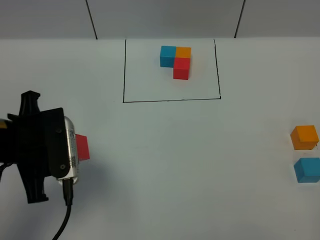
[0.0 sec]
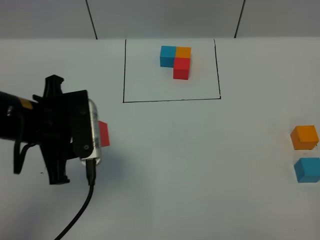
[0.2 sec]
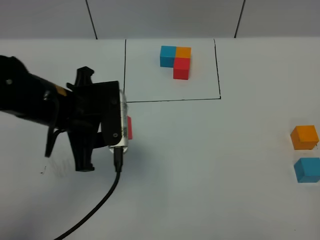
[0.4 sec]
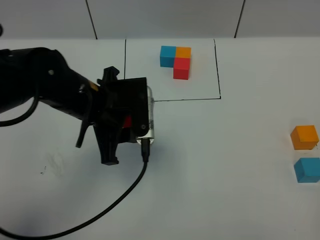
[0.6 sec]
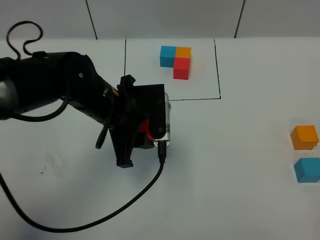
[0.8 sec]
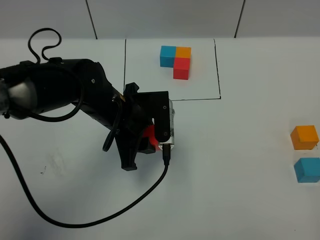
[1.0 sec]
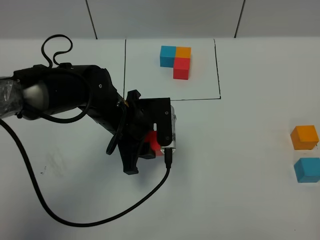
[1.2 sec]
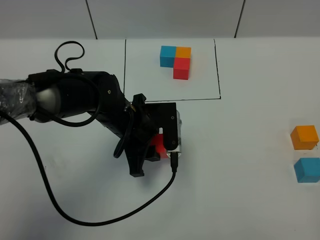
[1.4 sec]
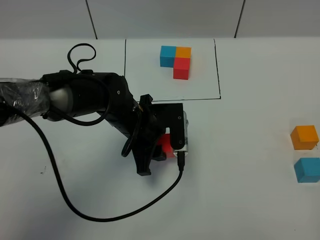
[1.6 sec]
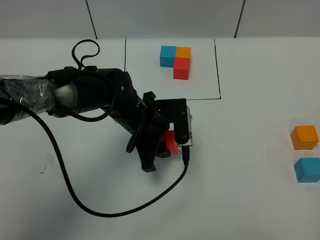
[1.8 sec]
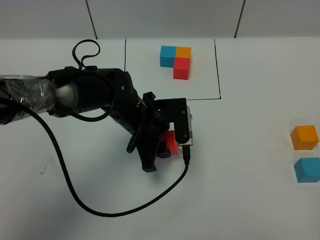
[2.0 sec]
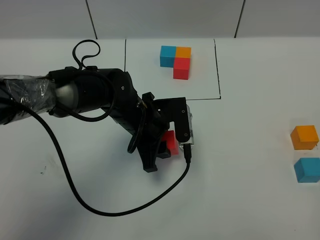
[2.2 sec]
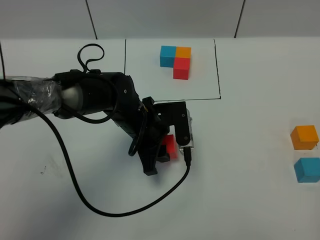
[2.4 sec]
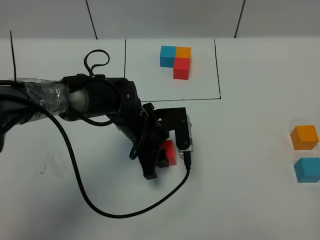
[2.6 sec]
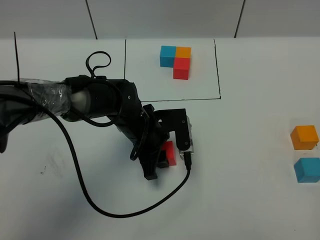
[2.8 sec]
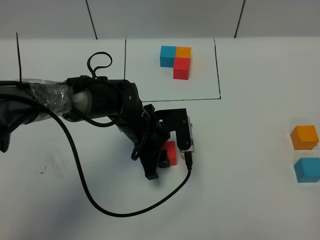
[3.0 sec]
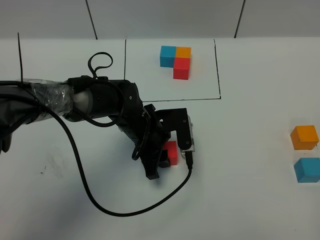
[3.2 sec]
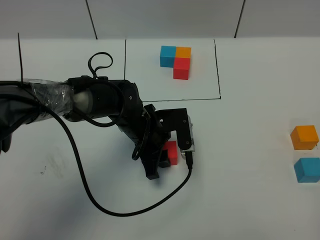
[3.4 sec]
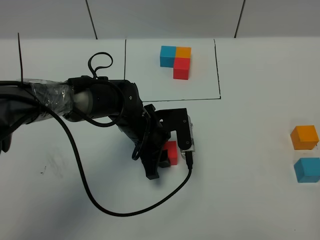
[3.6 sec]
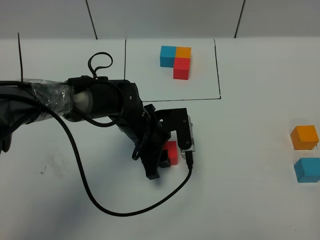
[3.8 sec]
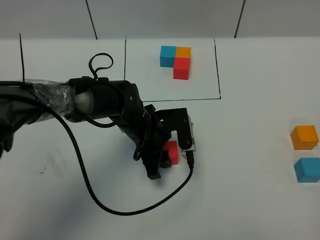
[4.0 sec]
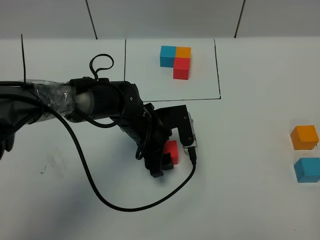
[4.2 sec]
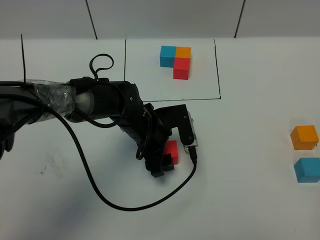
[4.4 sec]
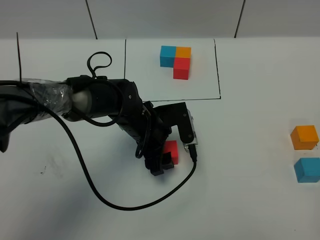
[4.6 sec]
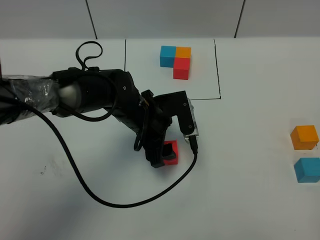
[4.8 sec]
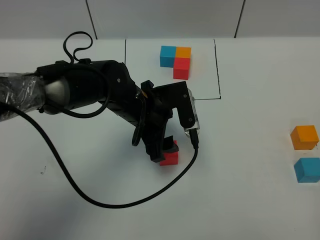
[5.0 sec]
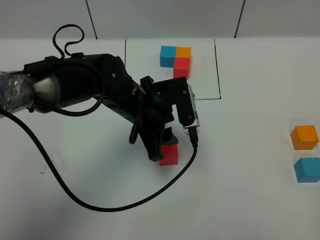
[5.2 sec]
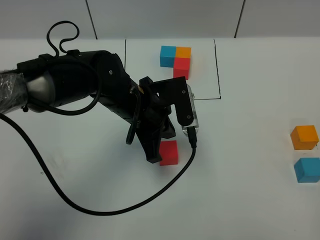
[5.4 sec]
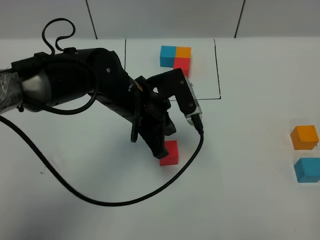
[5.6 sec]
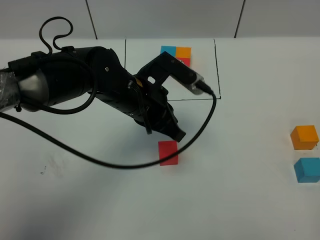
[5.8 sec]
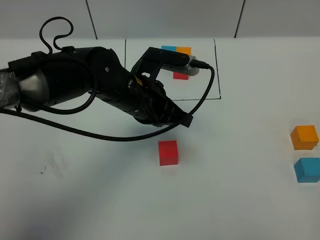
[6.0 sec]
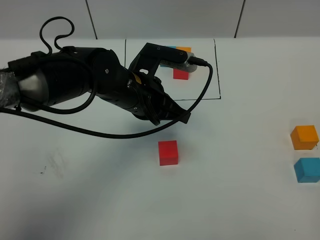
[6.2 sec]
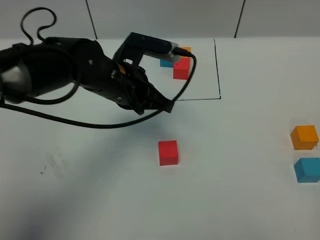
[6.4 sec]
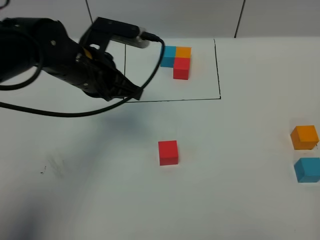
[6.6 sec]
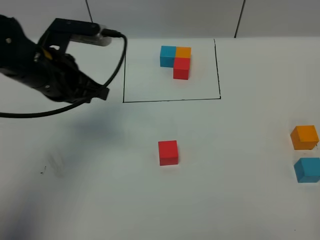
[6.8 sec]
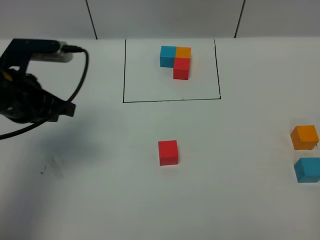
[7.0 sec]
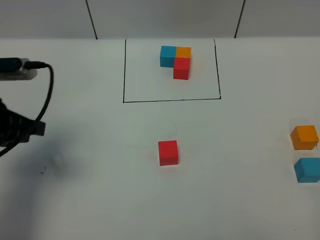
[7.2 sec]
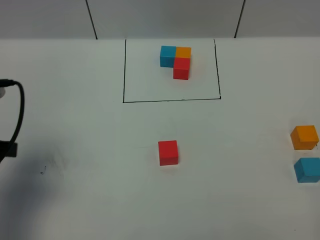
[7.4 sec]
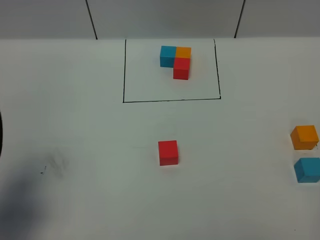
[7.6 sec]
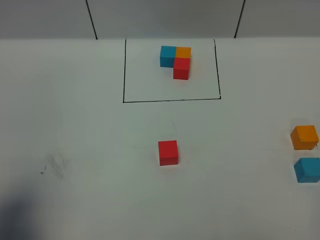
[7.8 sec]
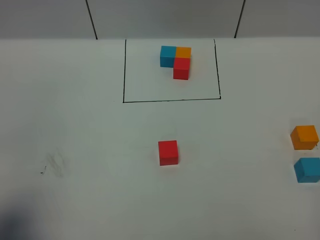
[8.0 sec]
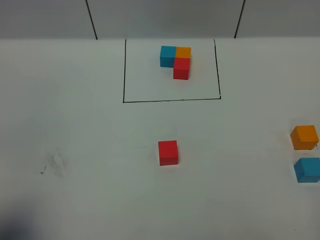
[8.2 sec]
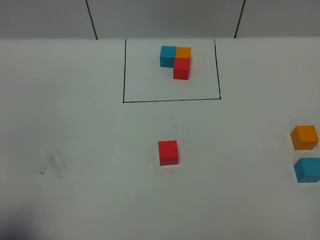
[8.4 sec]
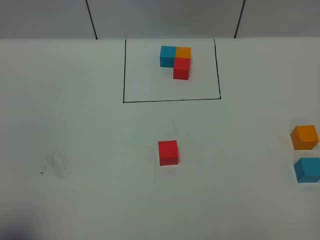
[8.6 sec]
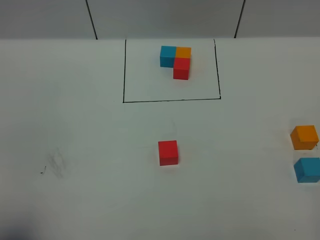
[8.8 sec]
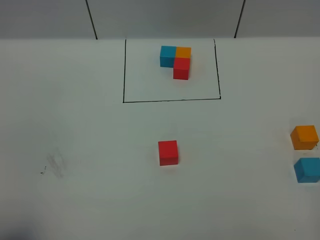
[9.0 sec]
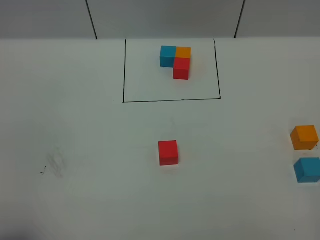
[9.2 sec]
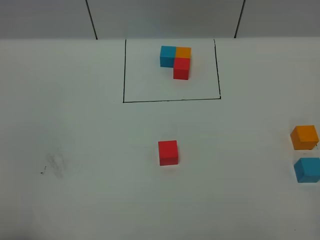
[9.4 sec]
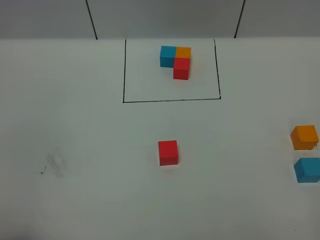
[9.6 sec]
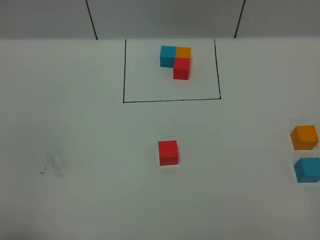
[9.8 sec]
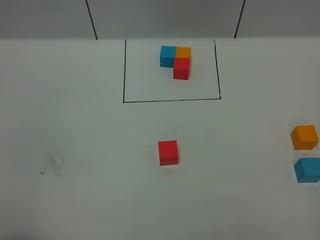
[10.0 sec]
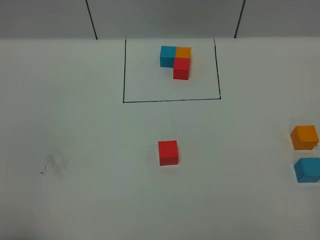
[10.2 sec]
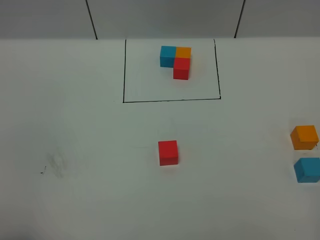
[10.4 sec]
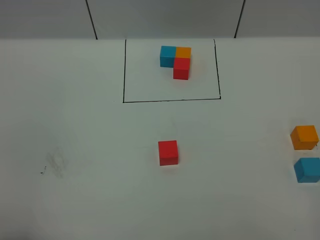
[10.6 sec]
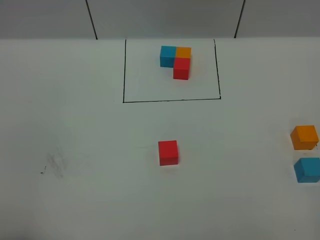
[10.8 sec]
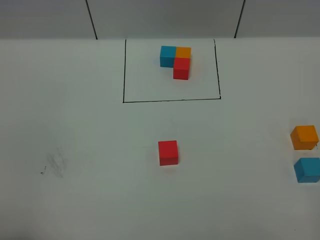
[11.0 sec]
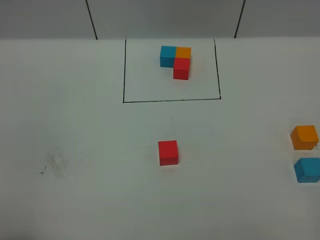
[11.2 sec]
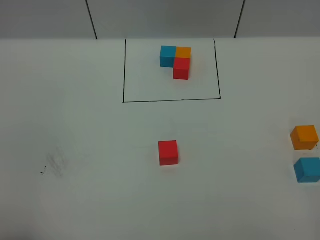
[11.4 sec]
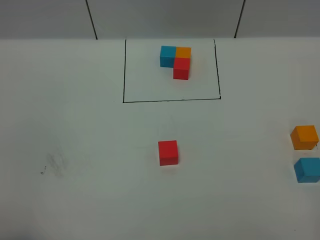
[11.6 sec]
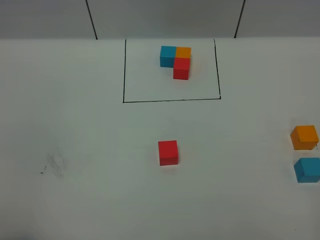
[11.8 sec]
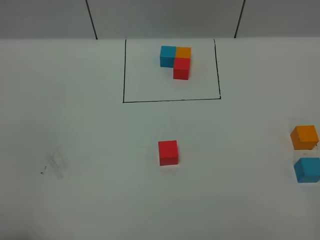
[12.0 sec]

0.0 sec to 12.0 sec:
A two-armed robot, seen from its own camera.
Task of the whole recording: According to the building block template in front, assemble the scattered blocks together.
Step, 0.0 sec to 4.6 sec: Put the red cube in the center of the table.
0.0 sec to 1.6 sec: The left gripper is displaced to the right, downward and forward by some 20 cm.
1.6 sec to 3.0 sec: The grippers stay close to where they were, moving slightly.
3.0 sec to 4.4 sec: The left gripper opens up.
4.4 sec to 6.0 sec: The left gripper moves upward, about 10 cm, and closes its fingers.
6.0 sec to 7.6 sec: The left gripper moves to the left and backward, some 30 cm.
7.6 sec to 9.0 sec: The left gripper shifts about 10 cm backward.
10.4 sec to 12.0 sec: Neither gripper changes place.

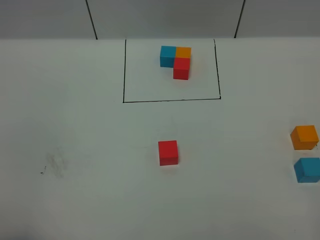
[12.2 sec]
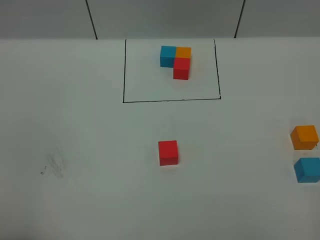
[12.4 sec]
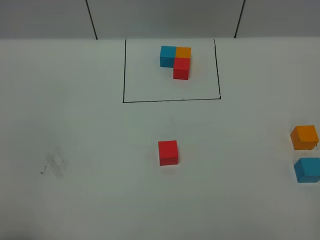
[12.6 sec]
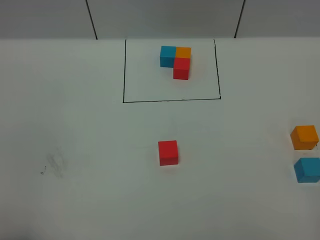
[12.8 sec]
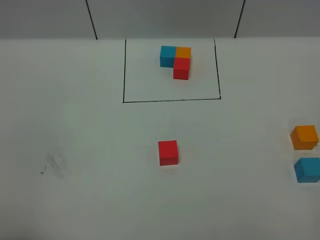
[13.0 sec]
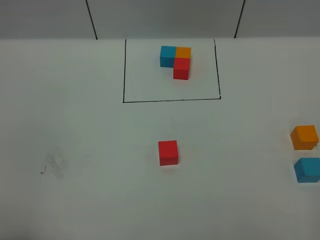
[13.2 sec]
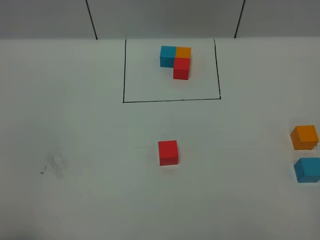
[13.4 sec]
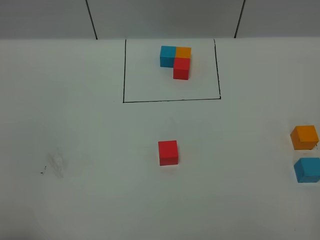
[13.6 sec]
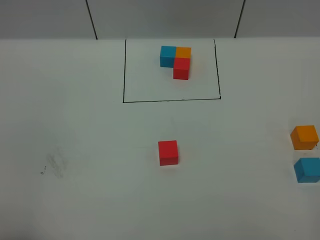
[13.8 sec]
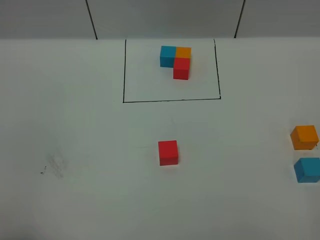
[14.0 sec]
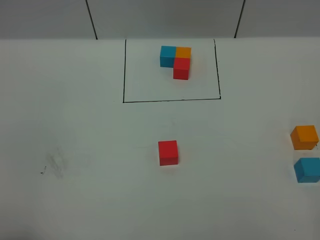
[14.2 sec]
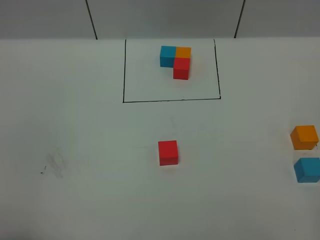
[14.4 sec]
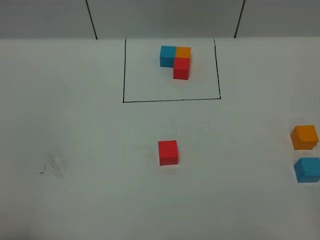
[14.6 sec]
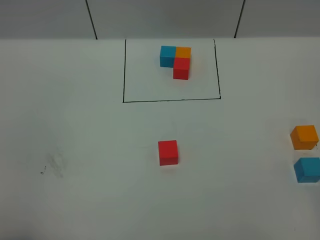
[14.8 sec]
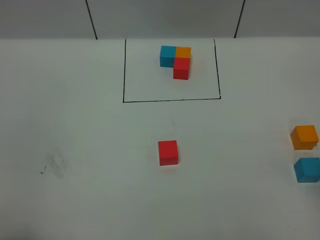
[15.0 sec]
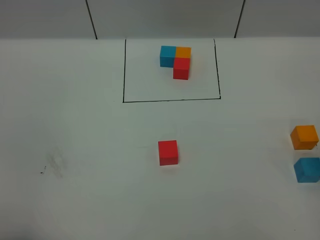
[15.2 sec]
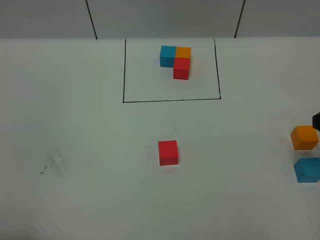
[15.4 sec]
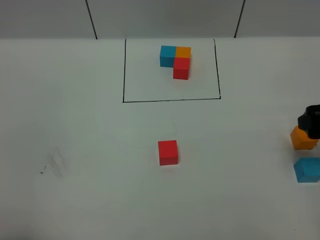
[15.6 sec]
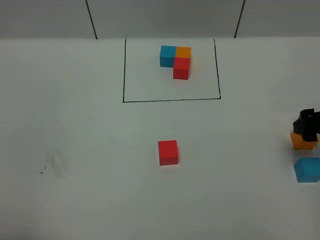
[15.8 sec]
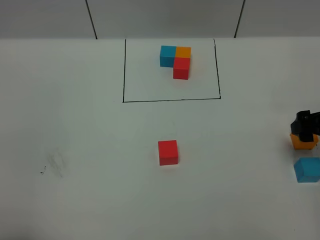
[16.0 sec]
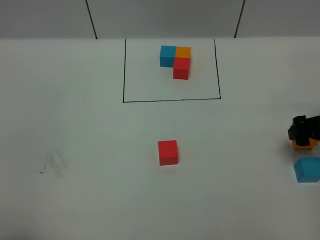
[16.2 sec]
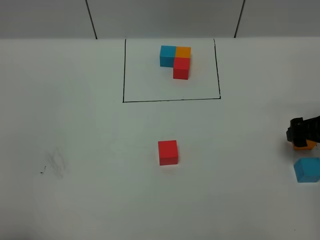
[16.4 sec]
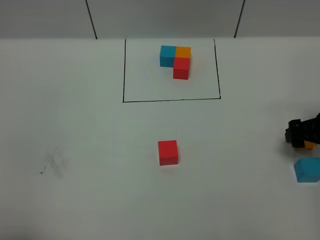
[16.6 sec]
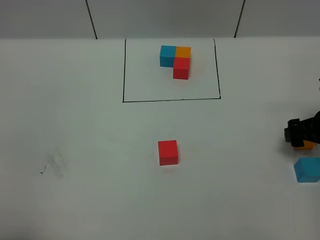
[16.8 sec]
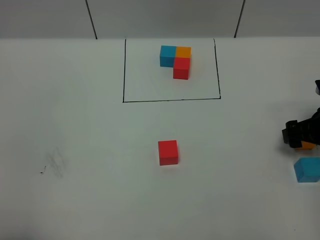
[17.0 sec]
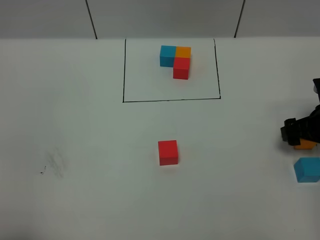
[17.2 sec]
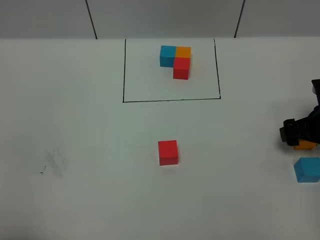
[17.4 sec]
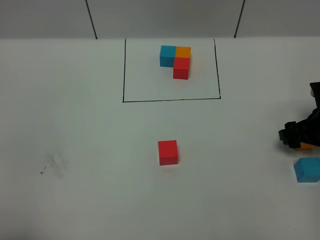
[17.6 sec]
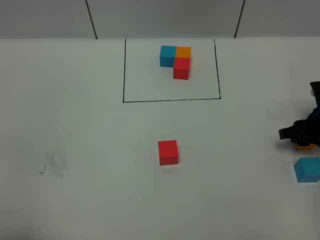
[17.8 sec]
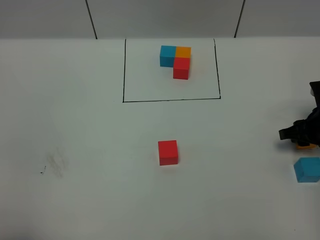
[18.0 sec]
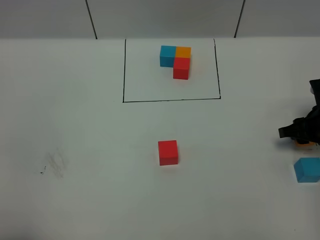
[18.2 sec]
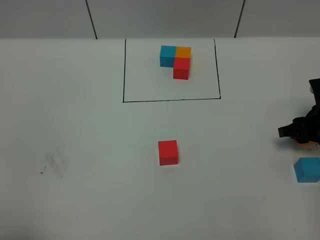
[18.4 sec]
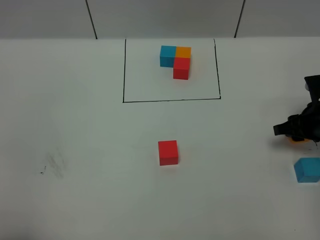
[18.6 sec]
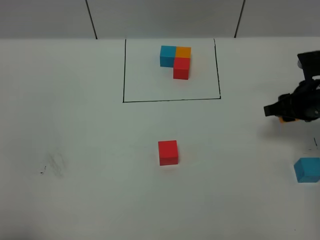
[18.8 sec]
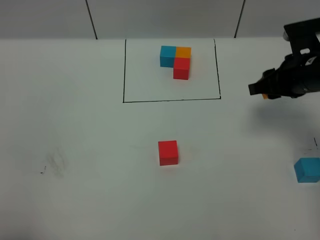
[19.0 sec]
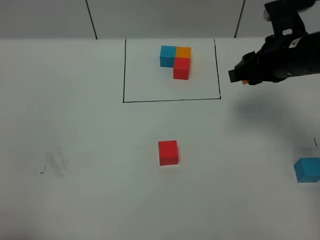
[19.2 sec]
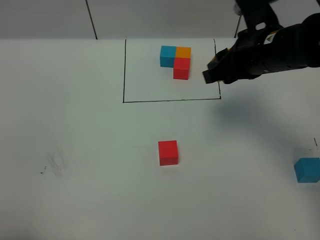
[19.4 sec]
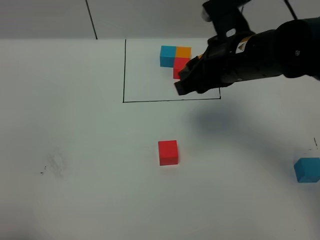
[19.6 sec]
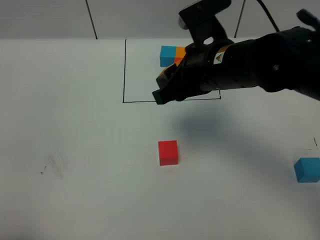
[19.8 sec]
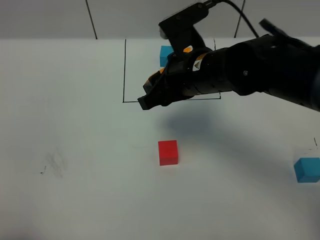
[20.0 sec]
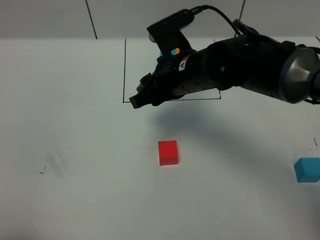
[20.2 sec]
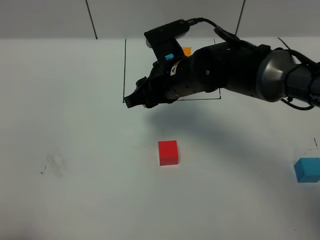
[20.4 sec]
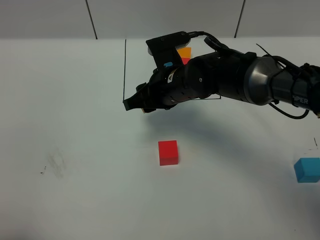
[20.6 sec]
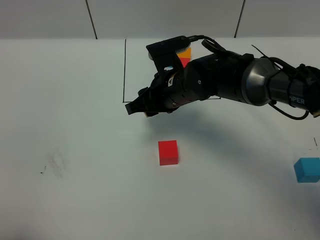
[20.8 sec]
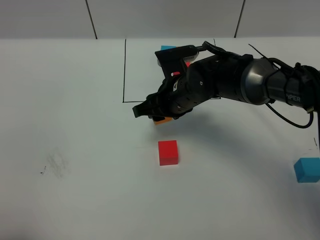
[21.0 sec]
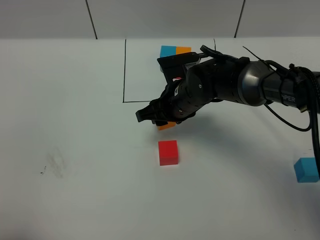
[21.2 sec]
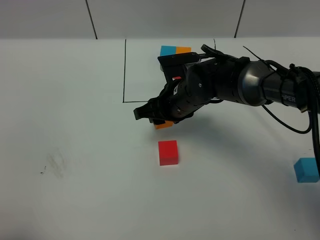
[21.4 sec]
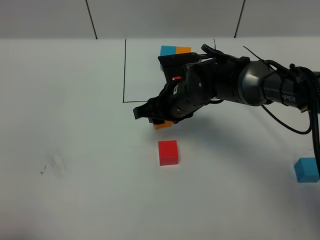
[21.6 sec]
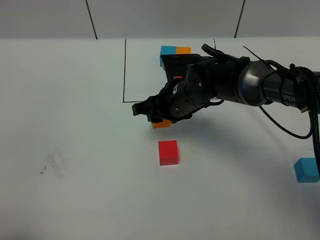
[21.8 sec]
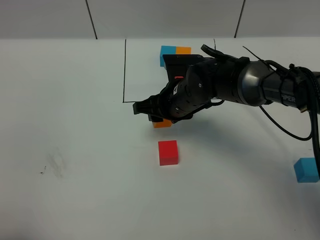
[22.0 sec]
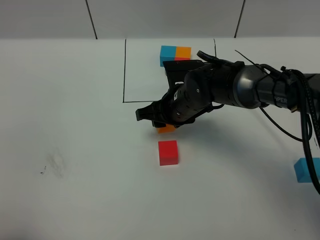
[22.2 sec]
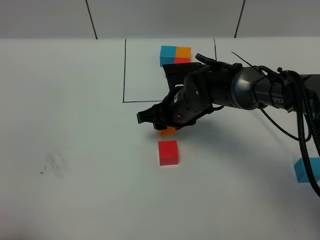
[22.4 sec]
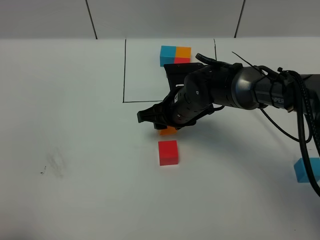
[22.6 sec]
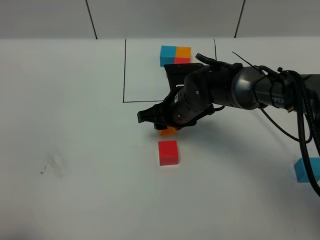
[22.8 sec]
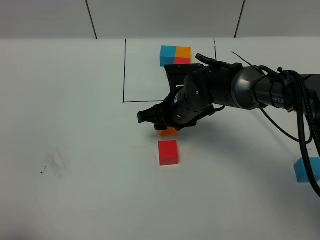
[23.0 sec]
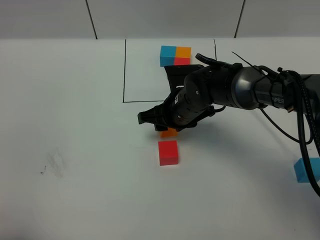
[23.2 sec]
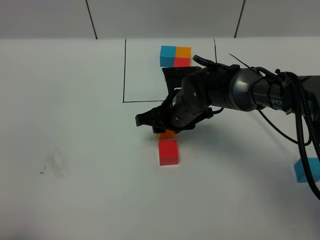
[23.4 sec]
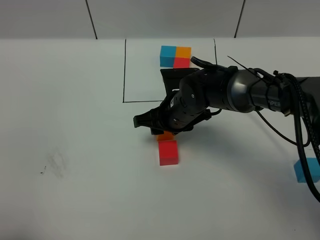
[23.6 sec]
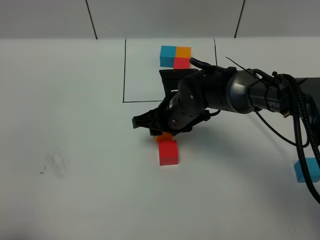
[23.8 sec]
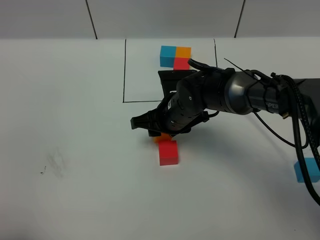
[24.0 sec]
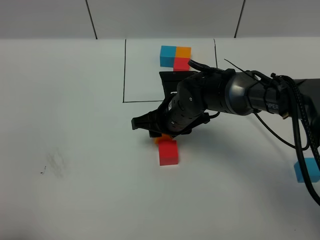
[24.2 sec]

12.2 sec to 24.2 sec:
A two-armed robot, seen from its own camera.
Task of the whole recording: According to the building block template in front, assemble the scattered blocks together.
15.2 sec to 16.6 sec: The right gripper heads downward and forward, covering roughly 15 cm.
16.6 sec to 18.2 sec: The right gripper closes its fingers.
18.2 sec to 19.8 sec: The right gripper travels to the left and upward by about 30 cm.
19.8 sec to 21.2 sec: The right gripper is displaced downward and forward by approximately 15 cm.
21.2 sec to 24.2 sec: The grippers stay close to where they were, moving slightly.
